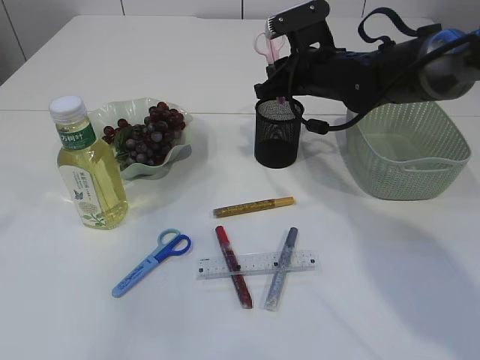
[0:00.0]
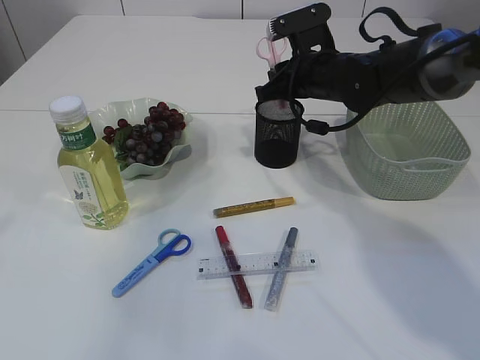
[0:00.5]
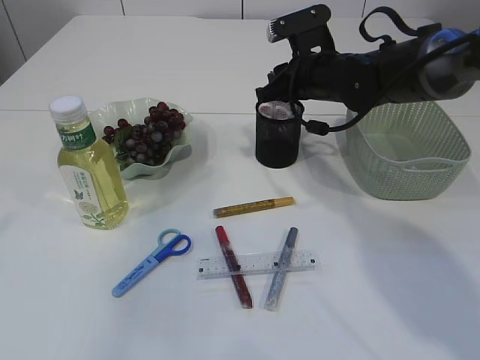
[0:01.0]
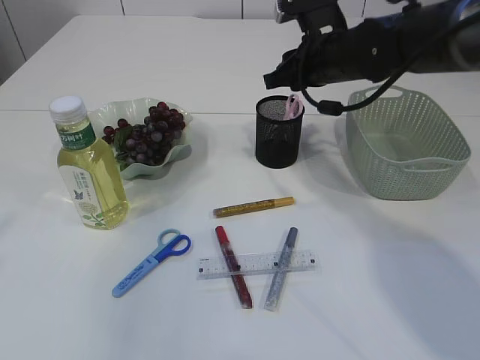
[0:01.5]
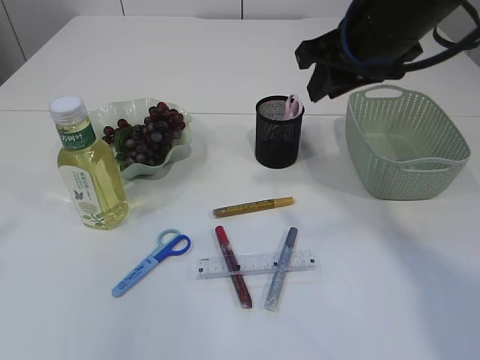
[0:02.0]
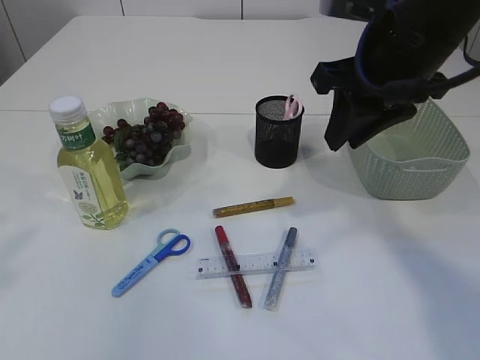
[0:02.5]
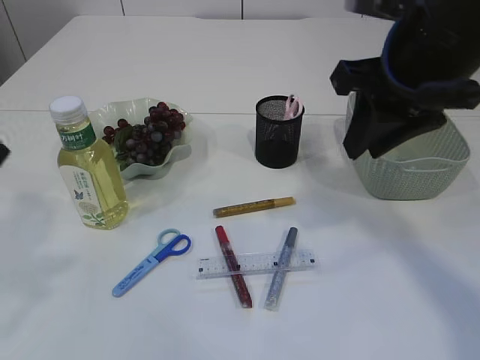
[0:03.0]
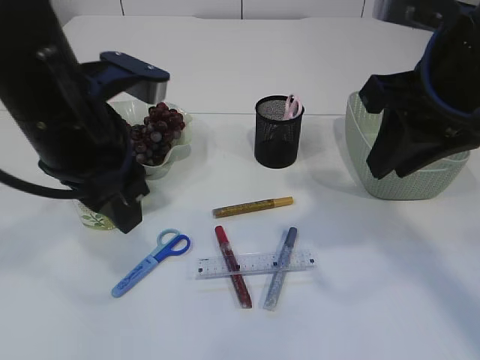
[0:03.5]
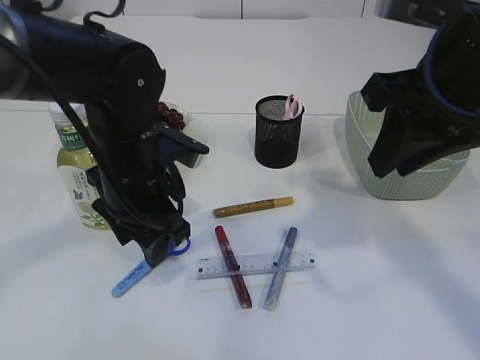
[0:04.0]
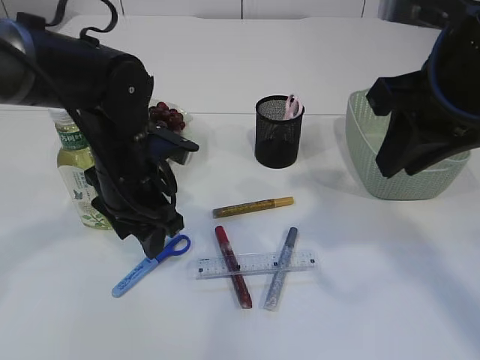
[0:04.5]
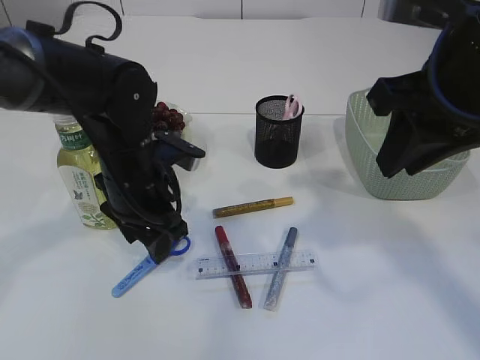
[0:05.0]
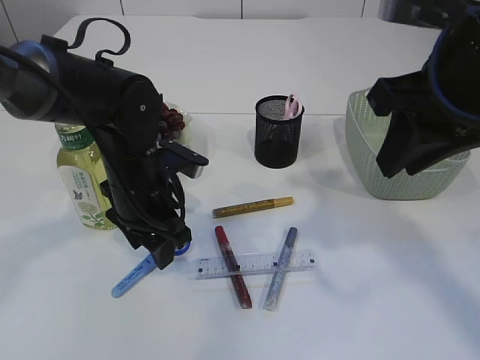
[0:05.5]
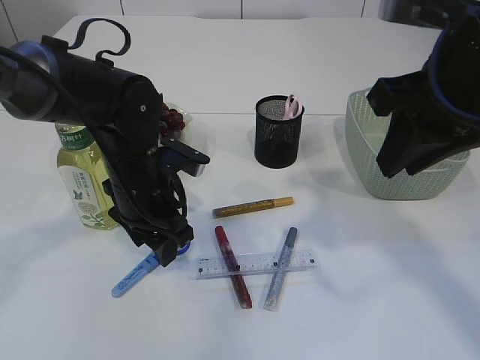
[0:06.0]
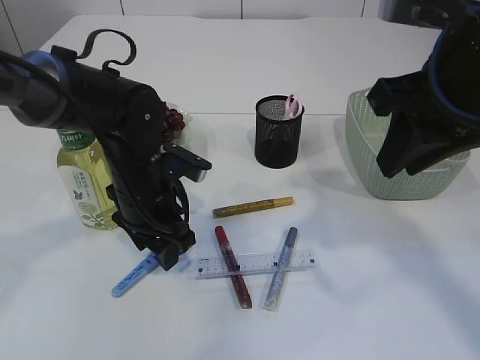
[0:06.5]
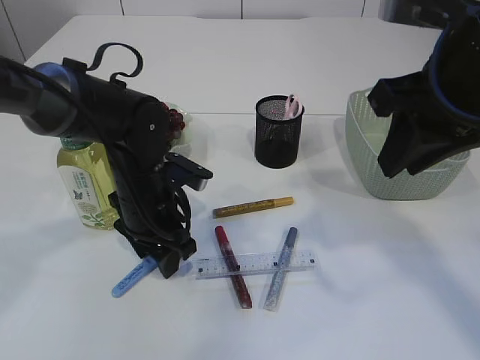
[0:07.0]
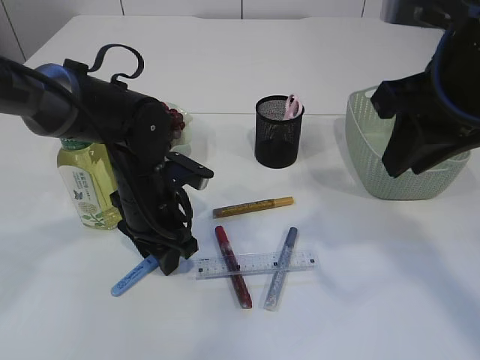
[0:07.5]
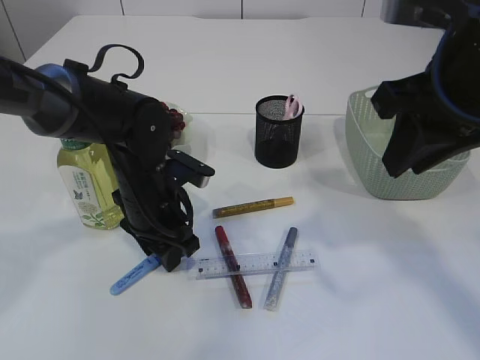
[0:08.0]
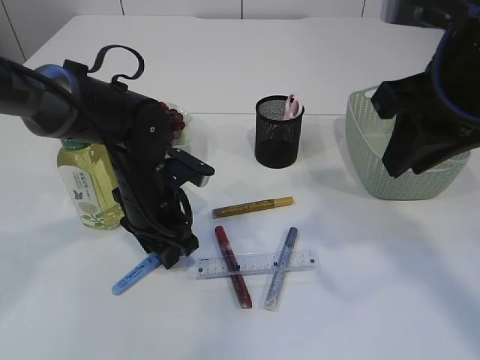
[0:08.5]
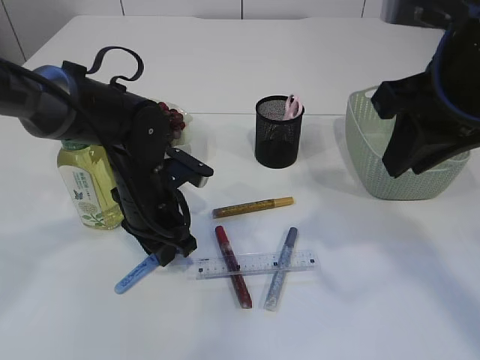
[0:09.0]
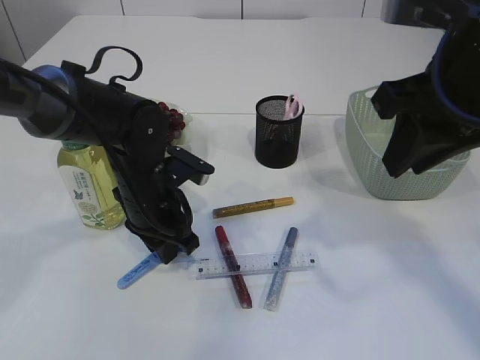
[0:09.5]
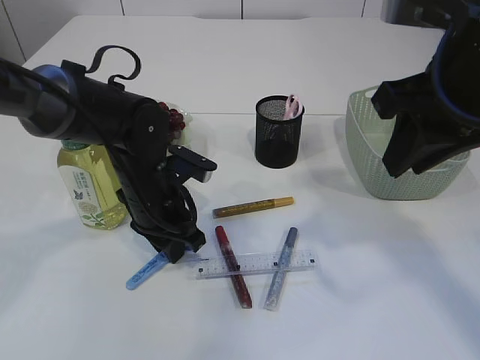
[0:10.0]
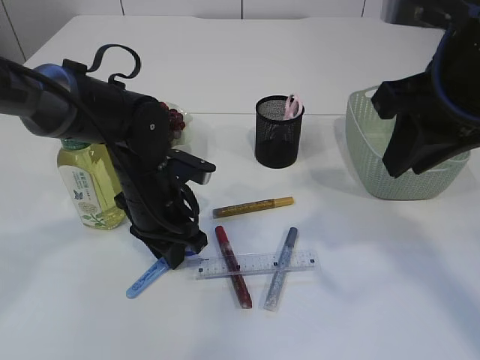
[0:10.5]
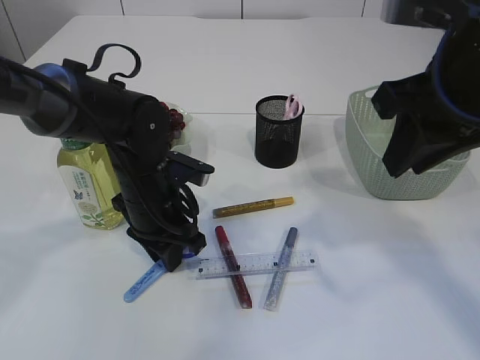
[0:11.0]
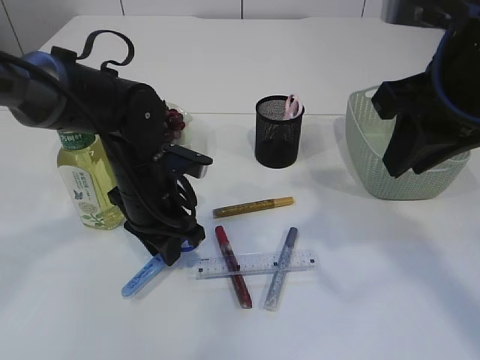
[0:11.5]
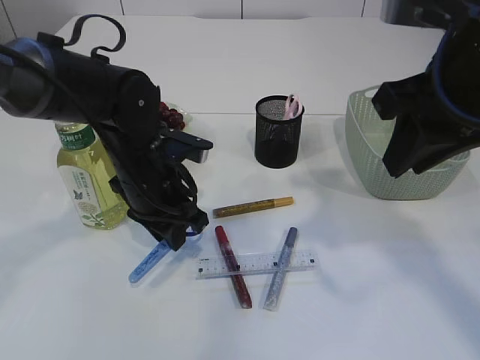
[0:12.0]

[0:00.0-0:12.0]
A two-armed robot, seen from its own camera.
0:00.0 to 0:02.0: The right gripper moves upward and backward, roughly 15 cm.
0:02.0 to 0:04.0: The left gripper moves downward, to the right and forward, about 30 cm; the right gripper goes some 10 cm backward.
0:04.0 to 0:06.0: The left gripper ends up some 5 cm from where it was.
0:06.0 to 0:08.0: The grippers move only a little.
0:08.0 to 0:10.0: Neither gripper changes place.
0:10.0 to 0:12.0: The grippers make only small movements.

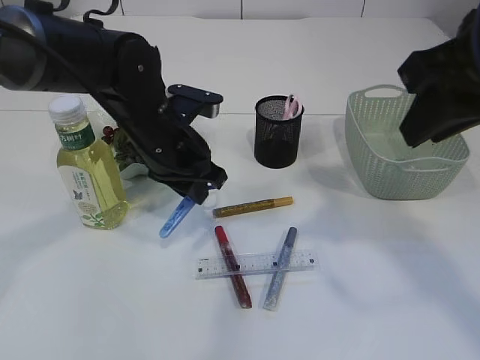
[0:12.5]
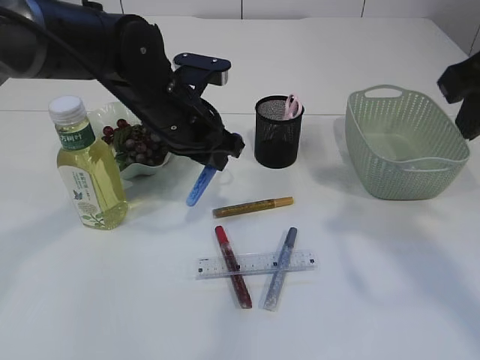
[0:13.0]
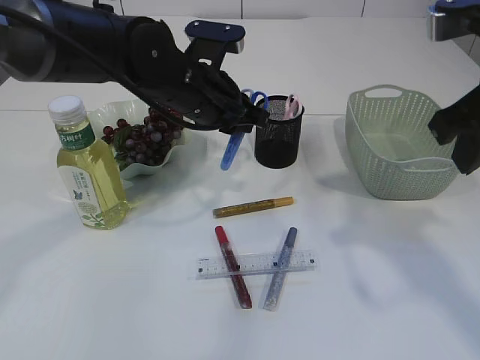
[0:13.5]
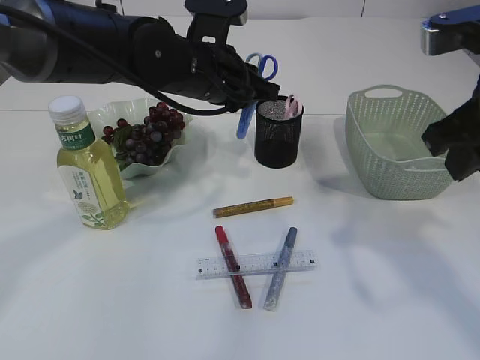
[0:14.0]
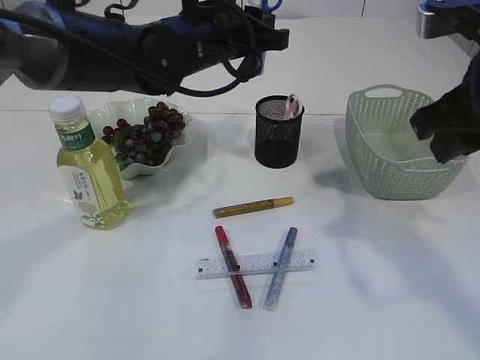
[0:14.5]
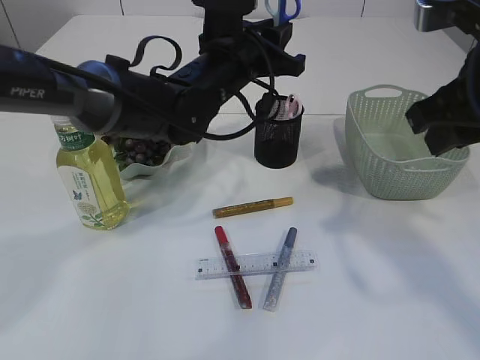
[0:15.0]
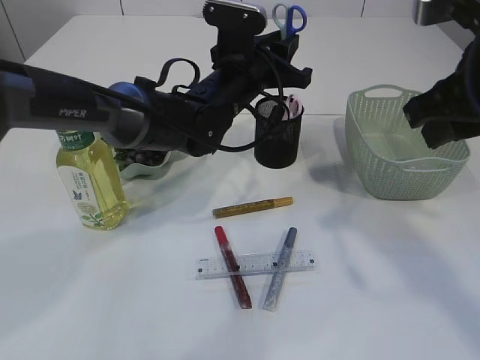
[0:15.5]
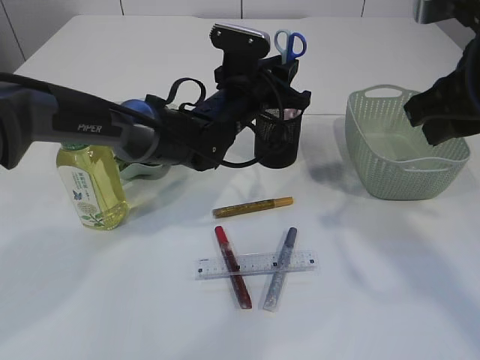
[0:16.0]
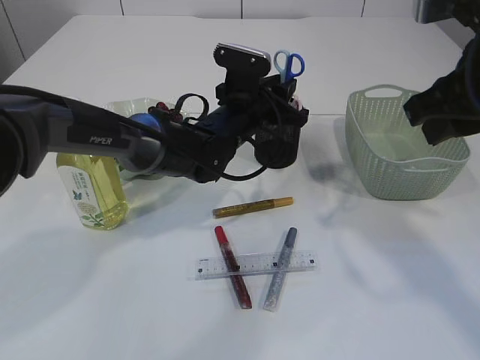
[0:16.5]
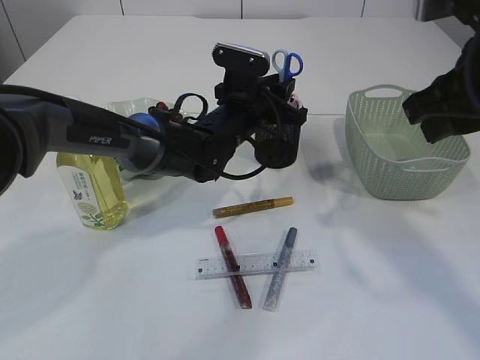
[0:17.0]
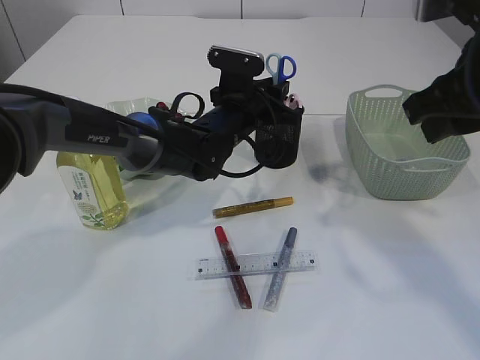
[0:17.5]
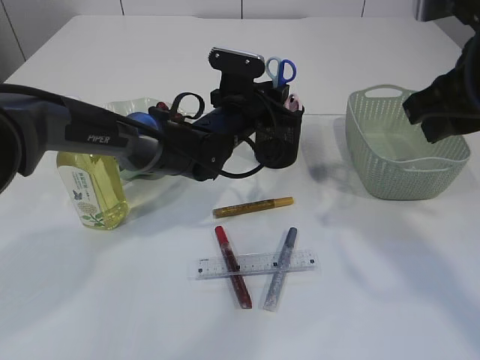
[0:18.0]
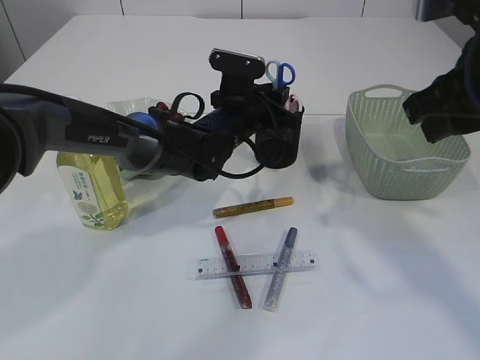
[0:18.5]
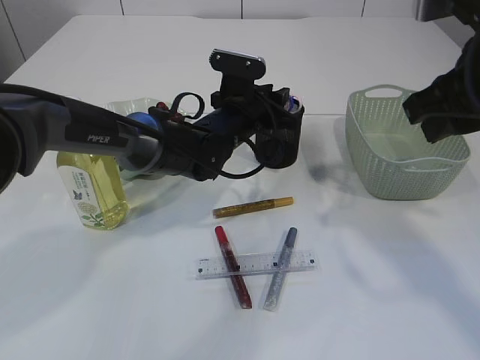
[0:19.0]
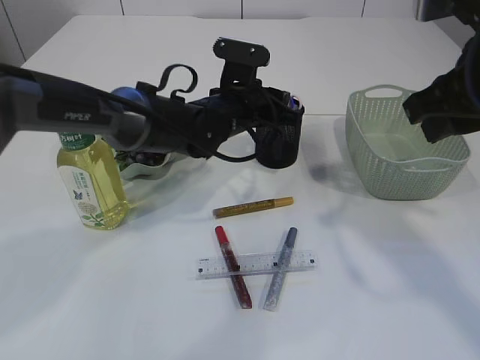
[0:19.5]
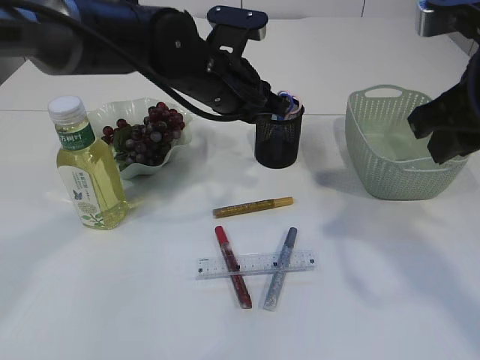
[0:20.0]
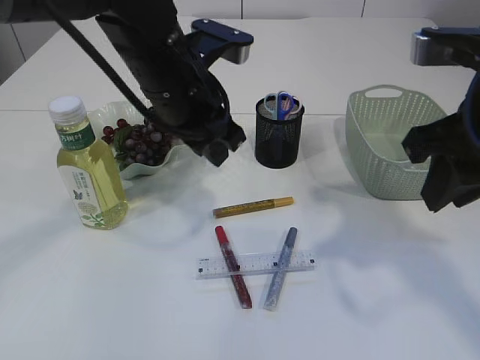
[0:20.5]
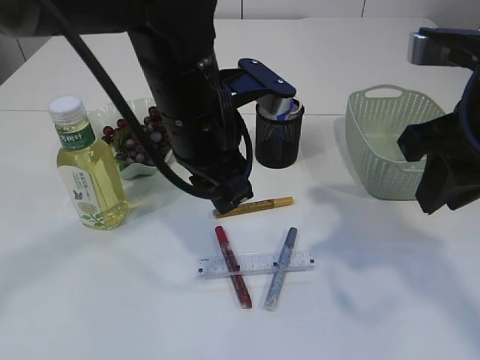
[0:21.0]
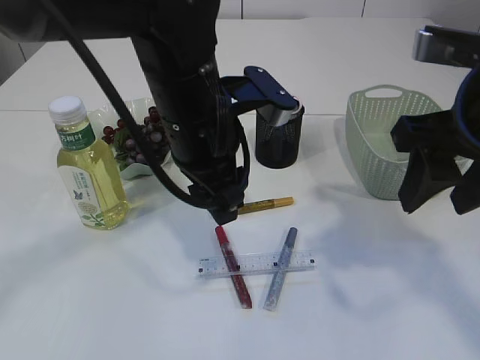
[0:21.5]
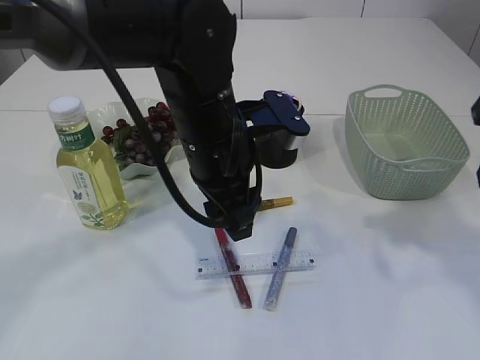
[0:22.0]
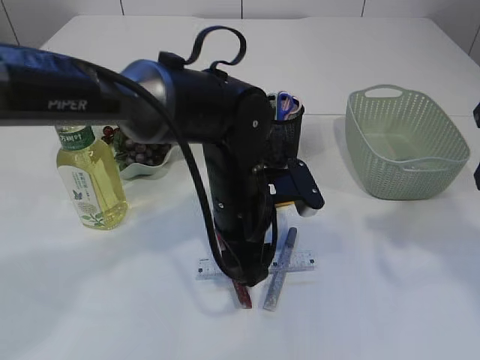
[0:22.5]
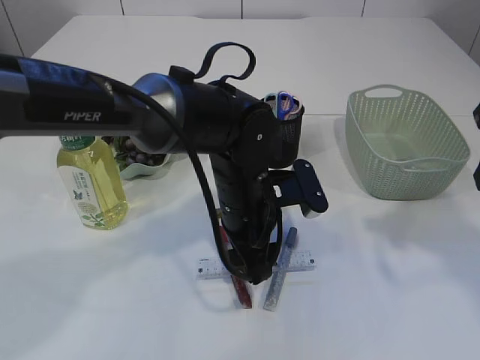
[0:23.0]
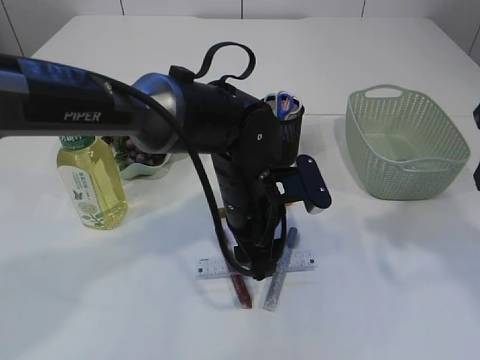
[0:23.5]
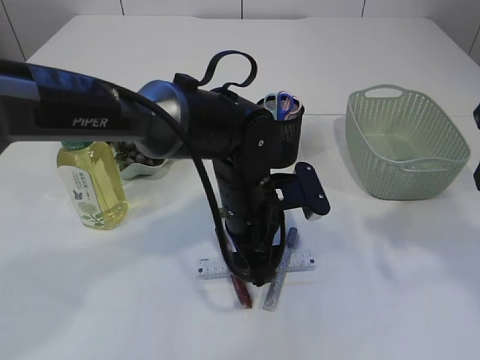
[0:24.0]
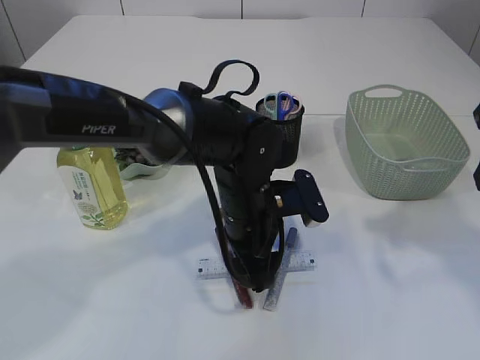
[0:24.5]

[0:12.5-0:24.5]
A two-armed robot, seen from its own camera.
Step, 0:13.0 to 0:20.5: Place the blue scissors into the pen holder.
0:12.5 to 0:14.5: The left gripper goes about 10 cm upward.
0:14.5 to 0:16.5: The left gripper moves downward, about 10 cm.
0:16.5 to 0:18.5: There are only small adjustments of the grippers.
0:18.5 to 0:20.5: The left gripper is displaced upward, backward and to the left by some 15 cm.
0:20.5 to 0:22.5: The right gripper heads to the right, covering approximately 5 cm, and opens its fingers. The left gripper goes approximately 15 cm downward and to the right.
0:22.5 to 0:24.5: The grippers stay close to where they were, moving slightly.

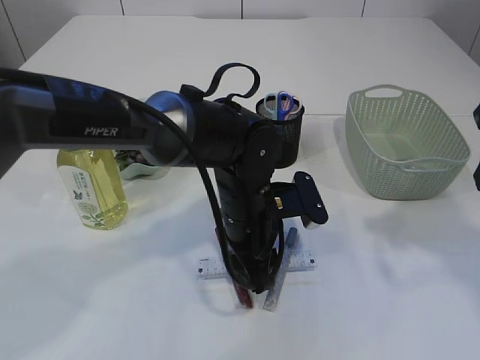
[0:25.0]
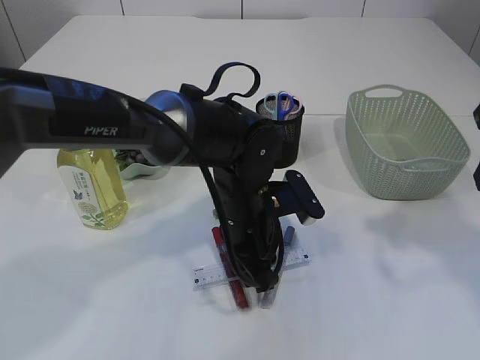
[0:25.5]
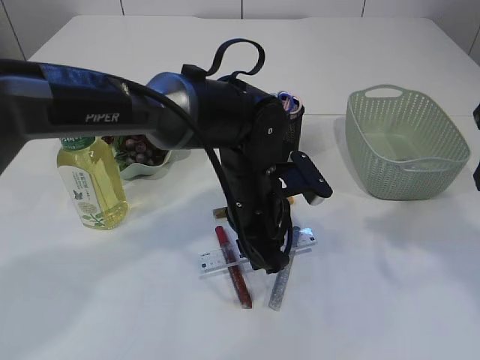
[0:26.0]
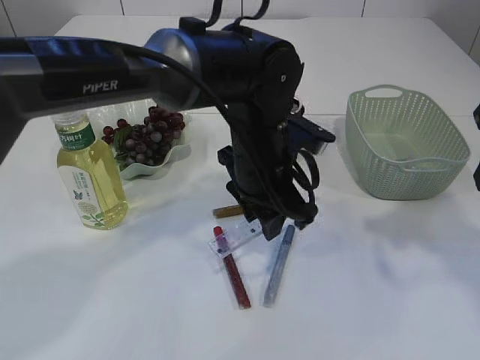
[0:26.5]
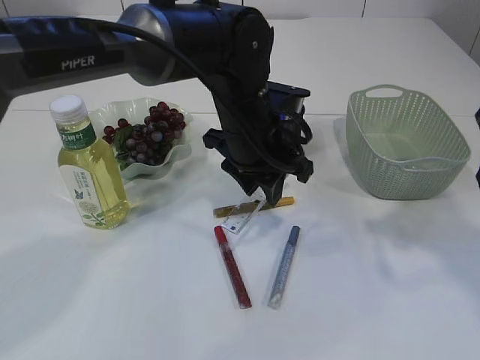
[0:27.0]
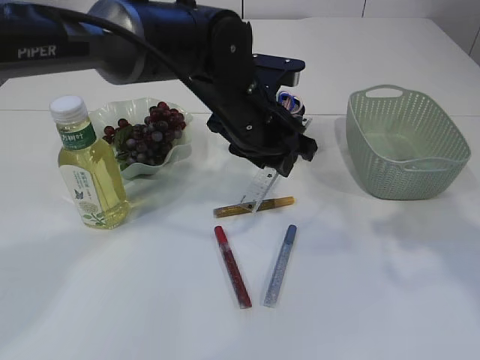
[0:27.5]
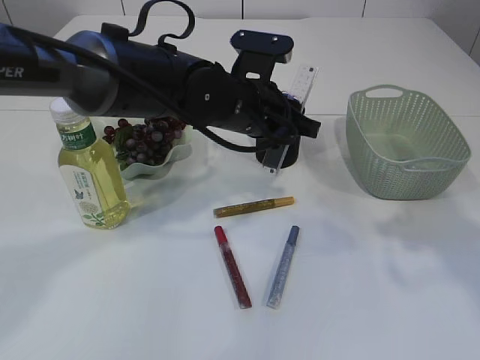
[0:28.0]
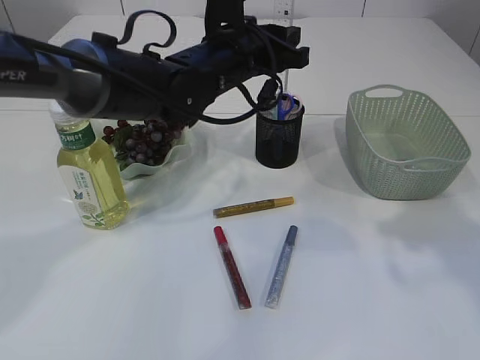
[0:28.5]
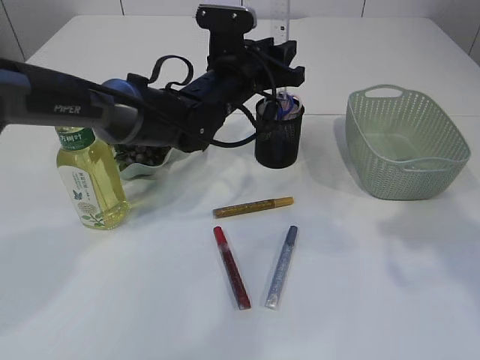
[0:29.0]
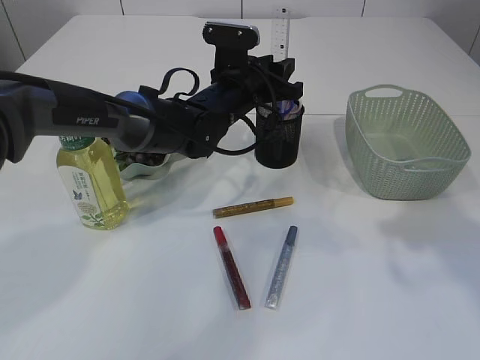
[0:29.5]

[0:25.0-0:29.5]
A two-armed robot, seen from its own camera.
0:25.0 to 0:27.0: The left gripper shifts approximately 10 cm upward.
0:27.0 to 0:29.5: The left gripper is displaced forward by roughly 10 cm.
